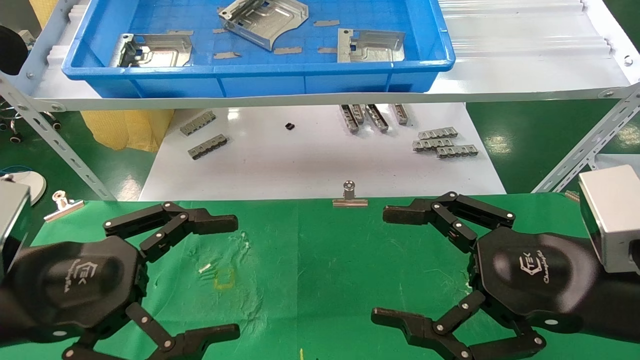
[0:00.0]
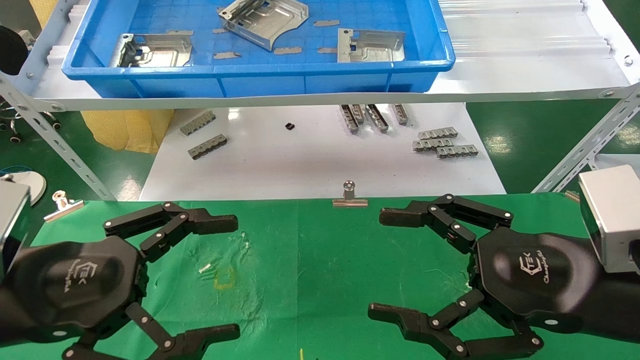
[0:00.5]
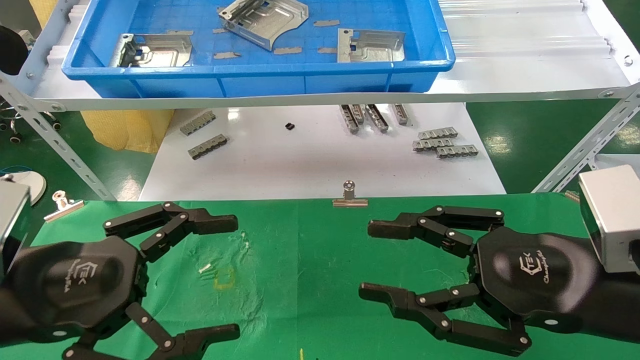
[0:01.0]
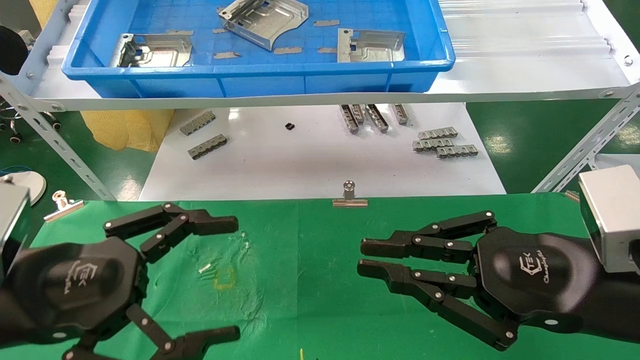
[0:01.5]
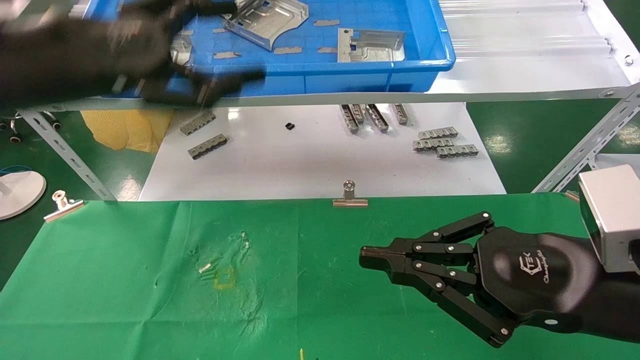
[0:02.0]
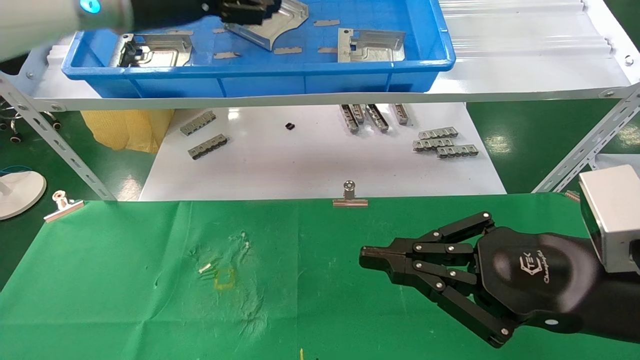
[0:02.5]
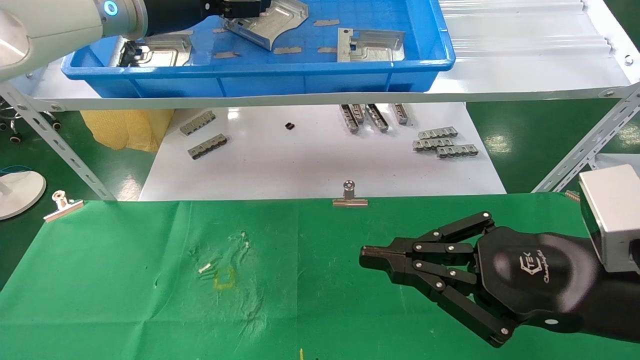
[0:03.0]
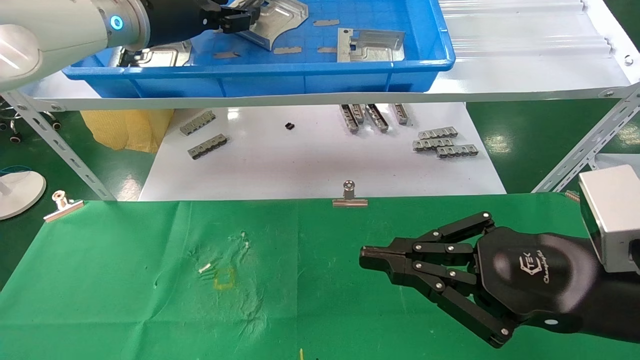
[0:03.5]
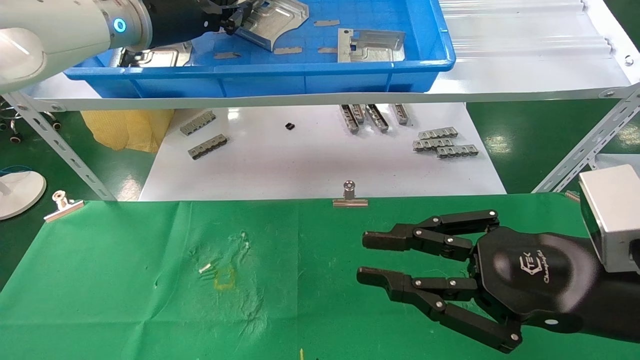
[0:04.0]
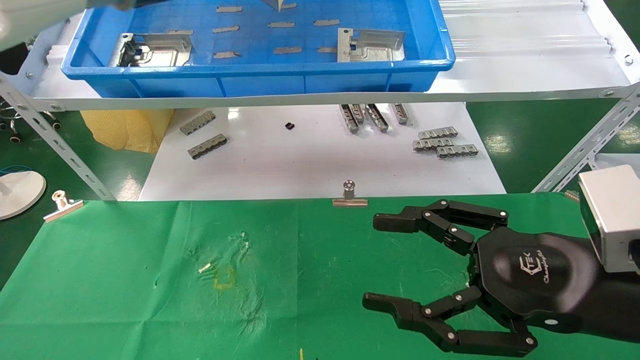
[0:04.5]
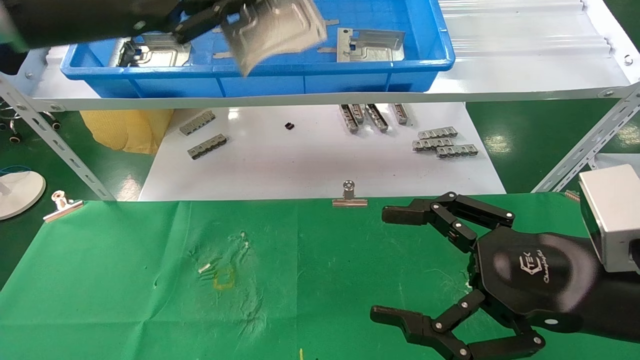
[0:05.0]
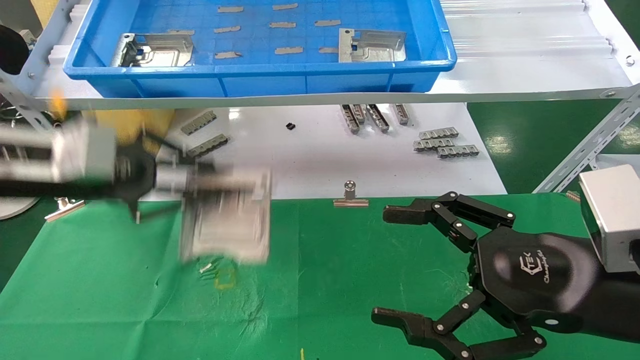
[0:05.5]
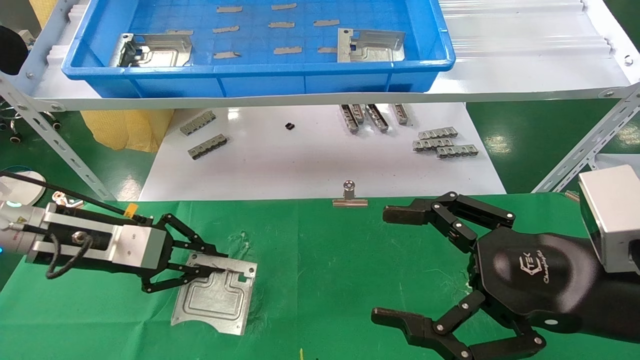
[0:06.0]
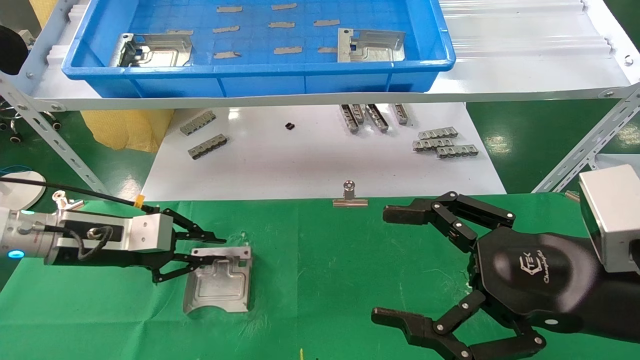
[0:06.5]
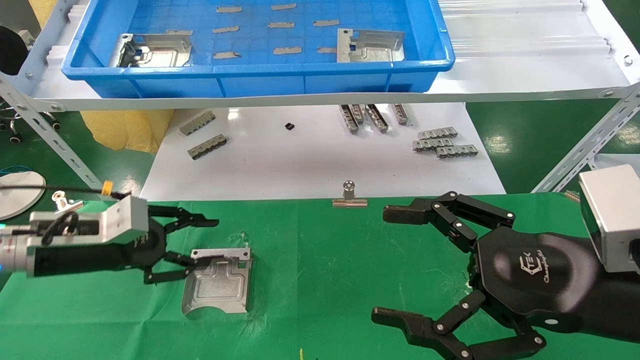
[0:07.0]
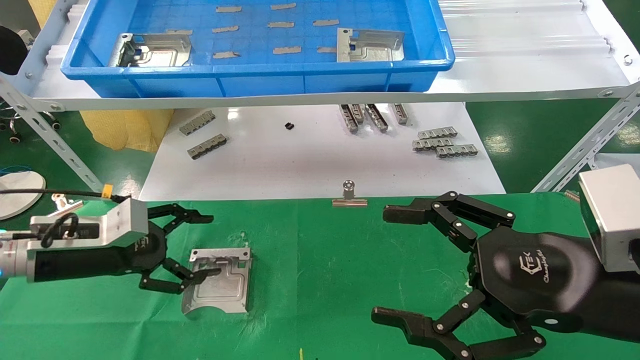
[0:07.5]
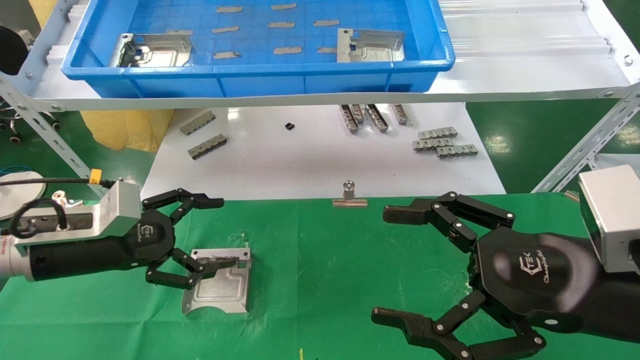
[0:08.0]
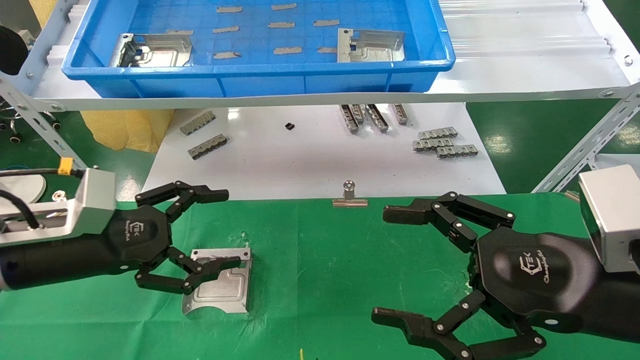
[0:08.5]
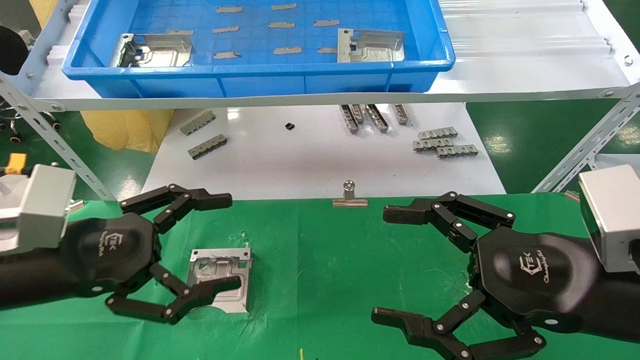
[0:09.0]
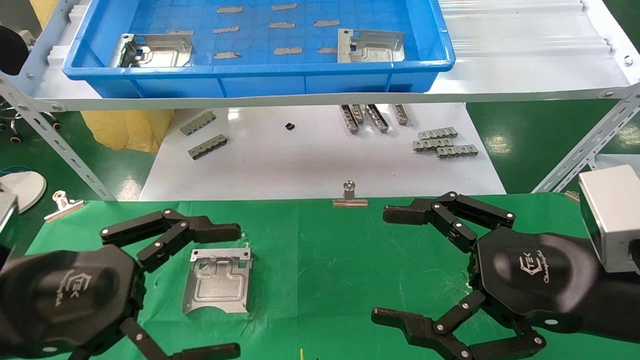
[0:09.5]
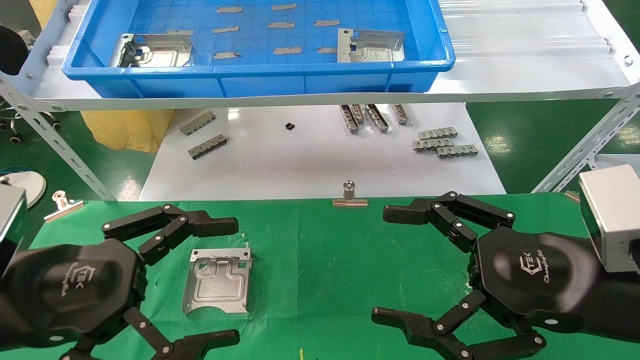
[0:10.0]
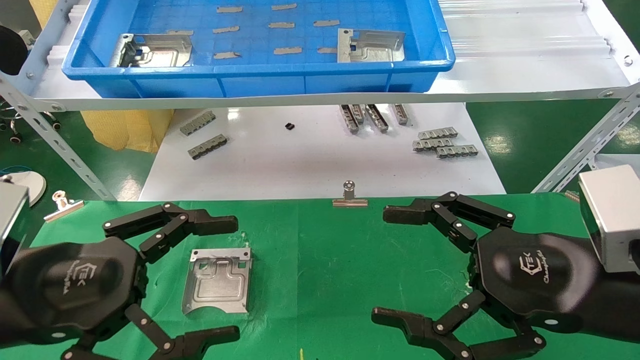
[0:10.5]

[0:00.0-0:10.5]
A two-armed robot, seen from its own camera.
Task of the whole recording: use the mechanical arm to pick up the parts and place them on the table.
Step, 0:02.0 to 0:04.0: Pick up the hard drive bracket from the feeding area.
Step, 0:04.5 to 0:07.0: Place the hard drive bracket into the box.
0:00.0 to 0:02.0: The right gripper closes its fingers, while the left gripper travels upward and forward by roughly 20 cm.
0:02.0 to 0:04.0: The left gripper heads forward and upward, covering some 15 cm, and closes.
0:04.0 to 0:06.5: The right gripper opens its fingers. Meanwhile the left gripper travels downward and to the left by some 30 cm.
0:06.5 to 0:08.5: The left gripper heads backward, covering approximately 5 cm, and opens up.
0:08.5 to 0:10.5: The left gripper heads backward, covering approximately 10 cm.

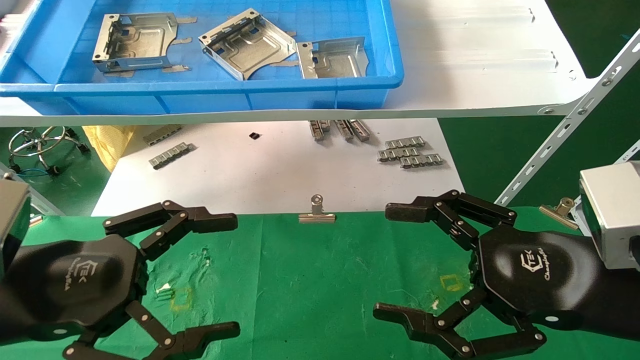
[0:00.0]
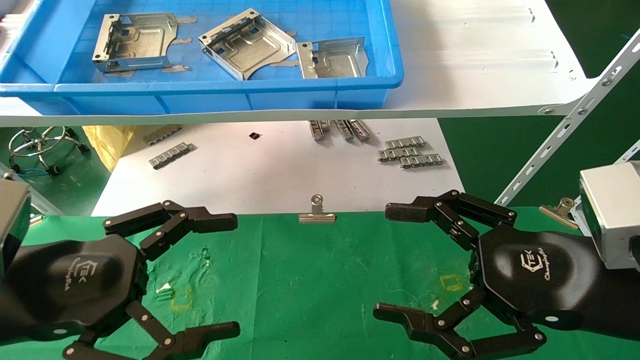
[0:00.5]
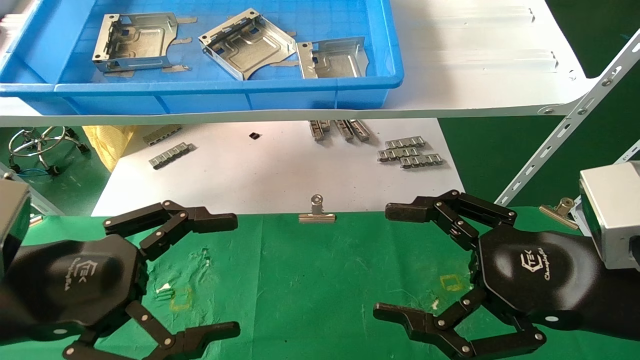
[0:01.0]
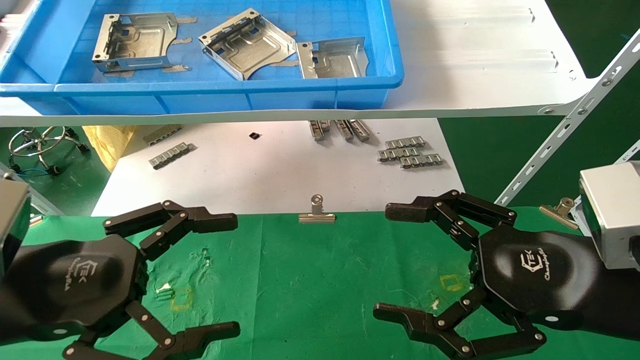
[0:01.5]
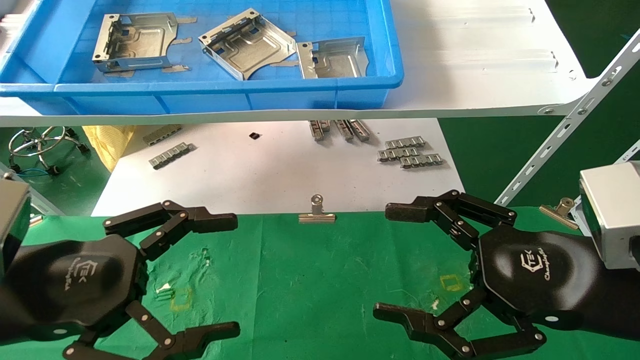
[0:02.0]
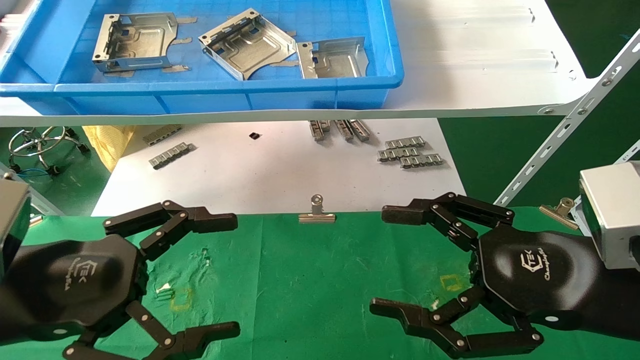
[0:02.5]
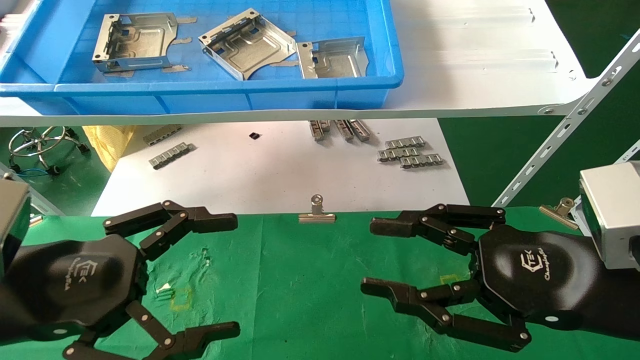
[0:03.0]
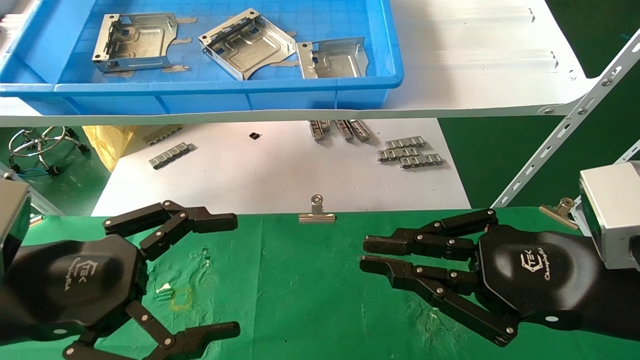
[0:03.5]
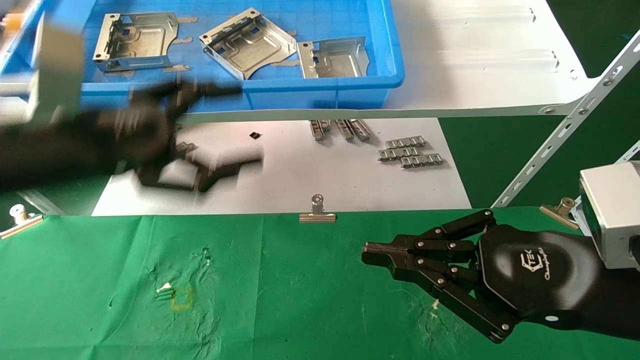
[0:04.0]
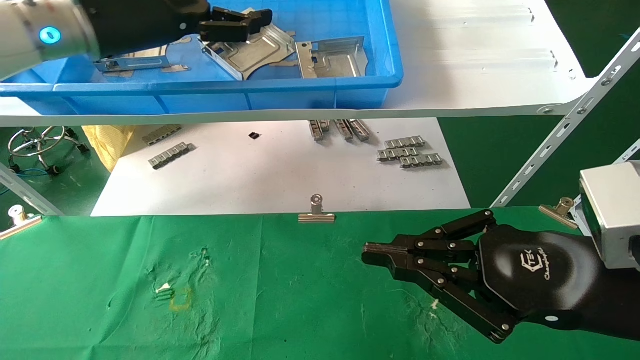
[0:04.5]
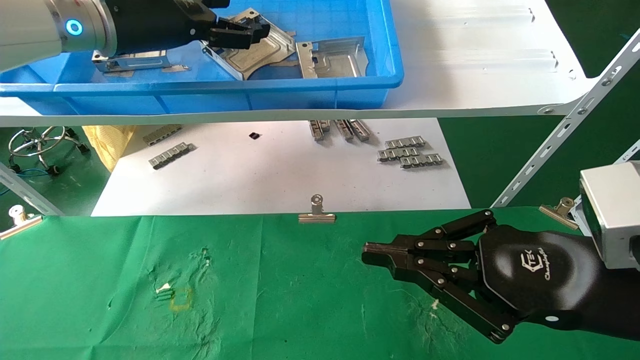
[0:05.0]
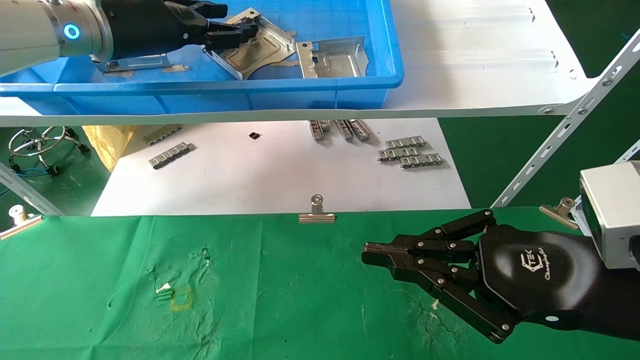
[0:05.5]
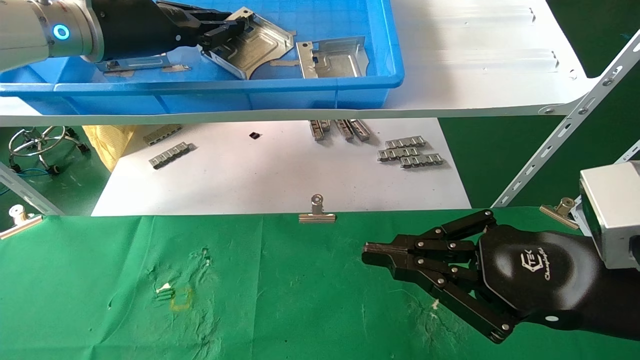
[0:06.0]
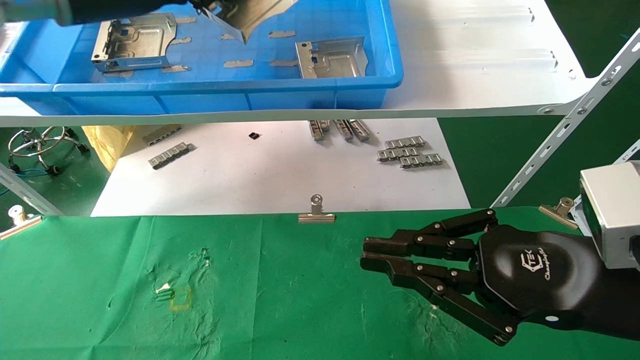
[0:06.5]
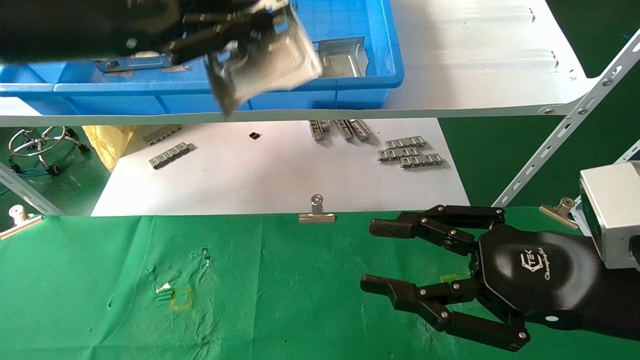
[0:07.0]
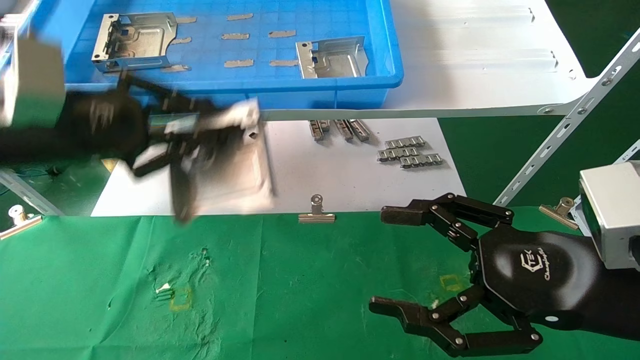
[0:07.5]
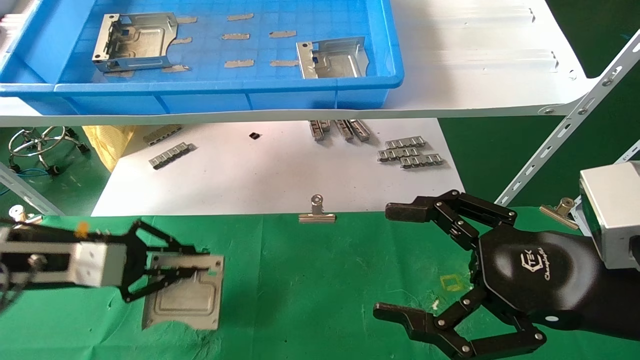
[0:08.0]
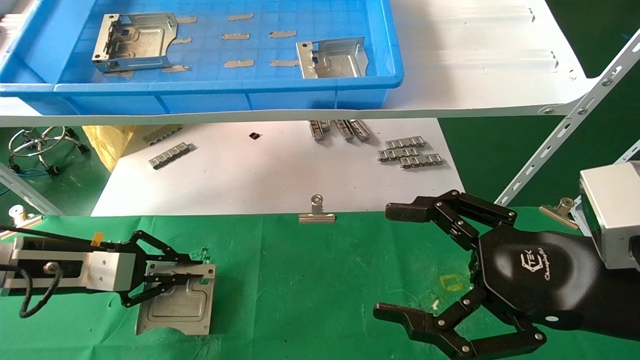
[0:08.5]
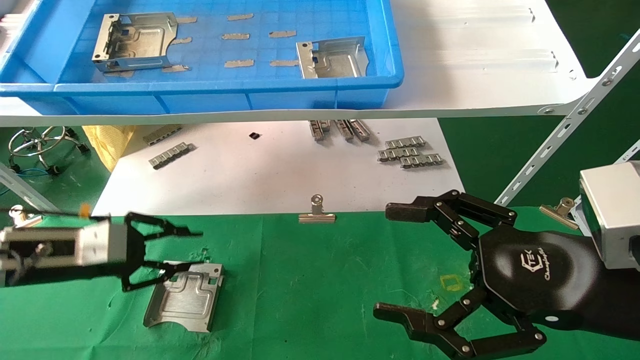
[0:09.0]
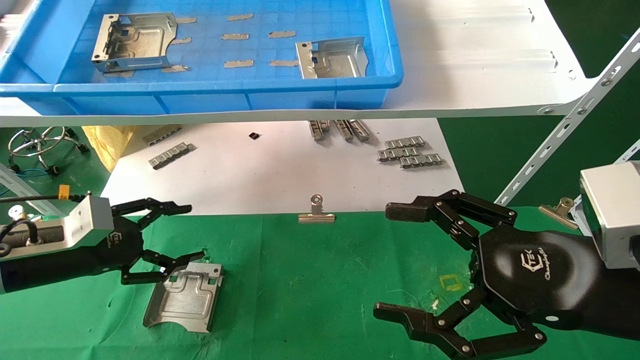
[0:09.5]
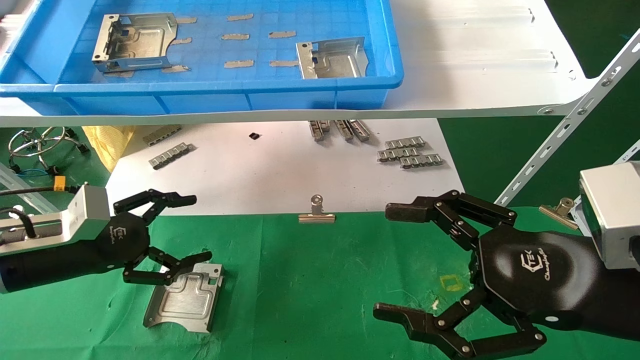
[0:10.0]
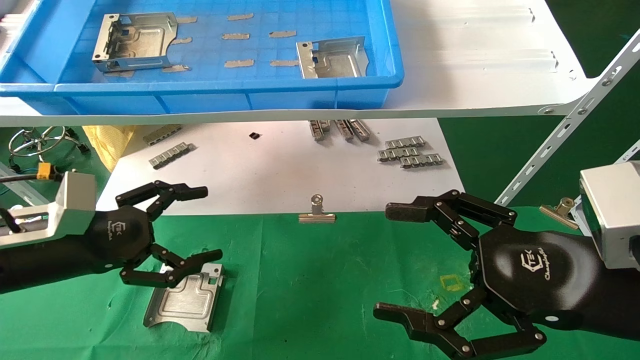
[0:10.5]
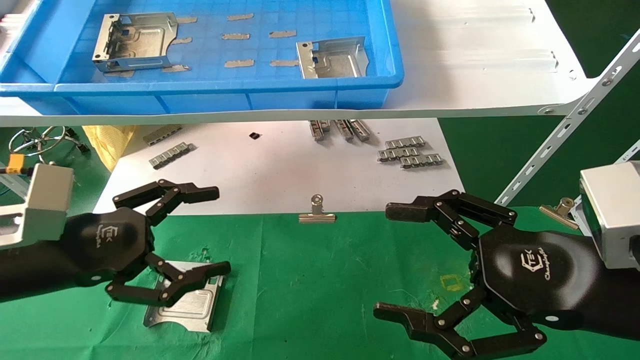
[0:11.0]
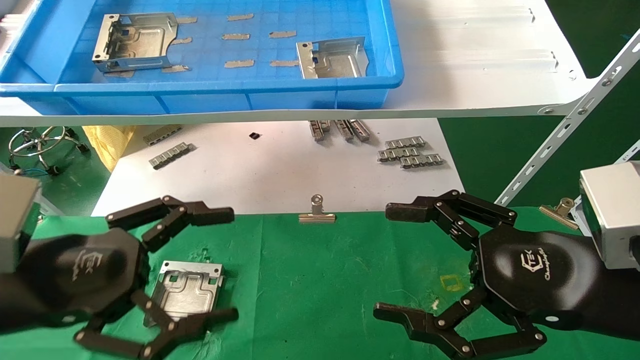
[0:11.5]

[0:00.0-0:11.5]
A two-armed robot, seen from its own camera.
Task of the whole recording: use the mechanical arm to pick up the parts and place them on the table.
Step, 0:04.0 to 0:06.0: Pick up the hard drive bracket from the feeding area.
Step, 0:06.5 to 0:08.5: Place the hard drive bracket into the box.
0:00.0 to 0:02.0: The two grippers keep their place.
0:02.0 to 0:04.0: The right gripper closes its fingers. The left gripper shifts roughly 15 cm upward and forward.
0:04.0 to 0:06.0: The left gripper moves forward and upward, about 15 cm, and closes.
0:06.0 to 0:07.5: The right gripper opens up. The left gripper goes some 15 cm backward, downward and to the left.
0:07.5 to 0:09.5: The left gripper travels downward by about 15 cm, and opens its fingers.
0:09.5 to 0:11.5: The left gripper travels backward, to the right and upward by about 15 cm, and opens.
